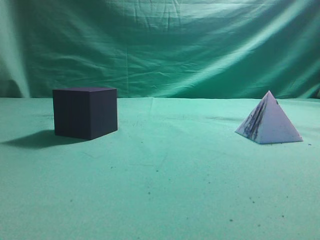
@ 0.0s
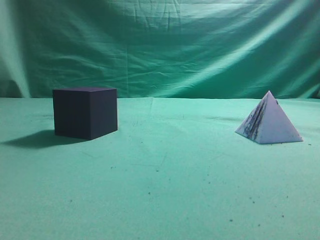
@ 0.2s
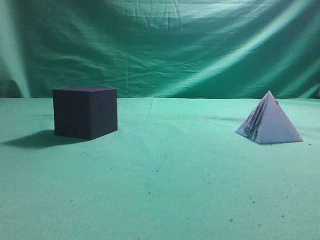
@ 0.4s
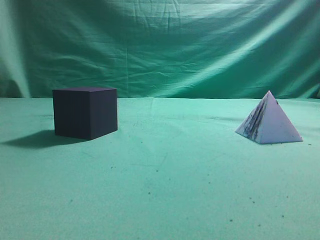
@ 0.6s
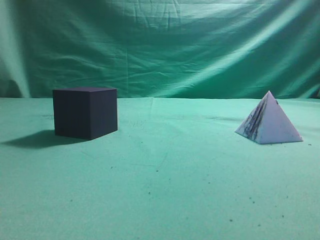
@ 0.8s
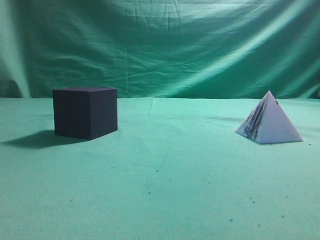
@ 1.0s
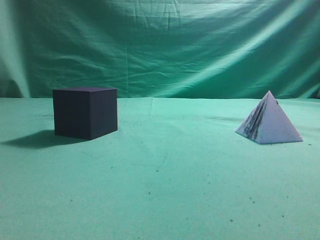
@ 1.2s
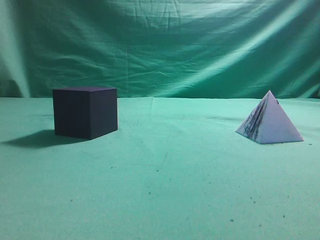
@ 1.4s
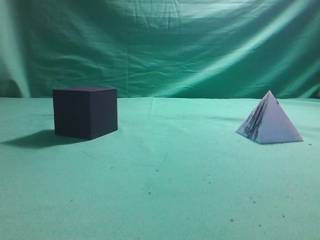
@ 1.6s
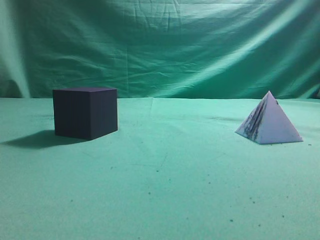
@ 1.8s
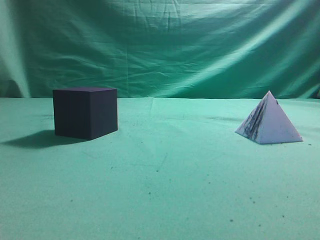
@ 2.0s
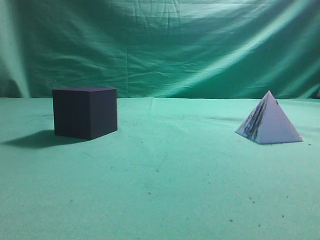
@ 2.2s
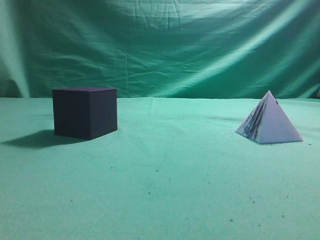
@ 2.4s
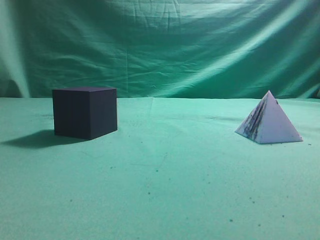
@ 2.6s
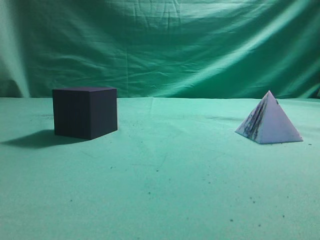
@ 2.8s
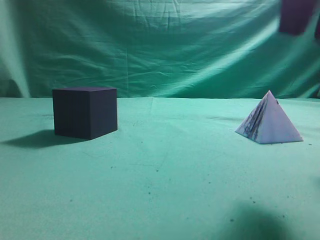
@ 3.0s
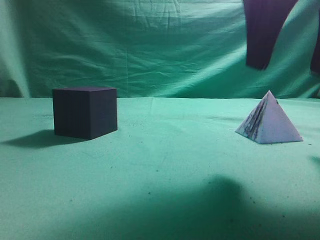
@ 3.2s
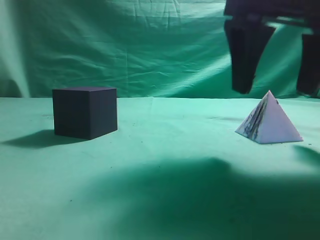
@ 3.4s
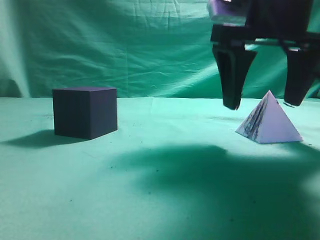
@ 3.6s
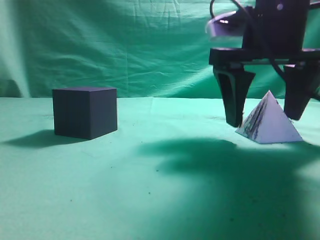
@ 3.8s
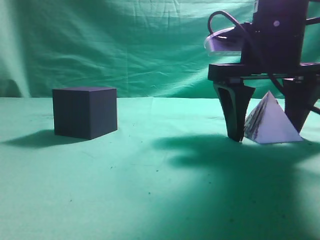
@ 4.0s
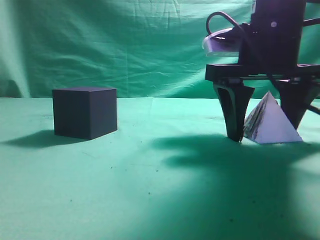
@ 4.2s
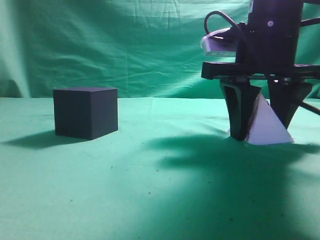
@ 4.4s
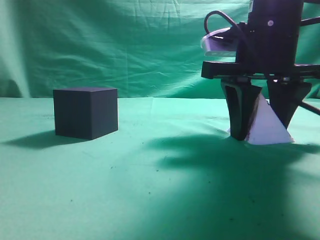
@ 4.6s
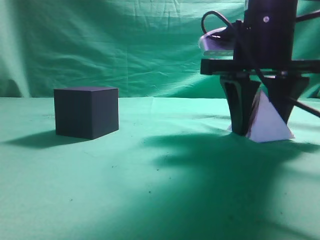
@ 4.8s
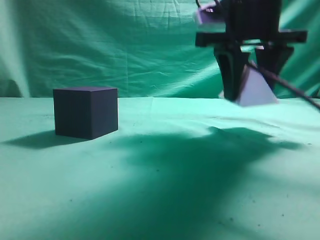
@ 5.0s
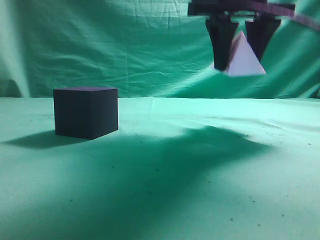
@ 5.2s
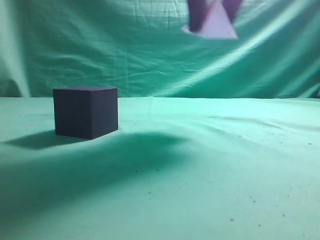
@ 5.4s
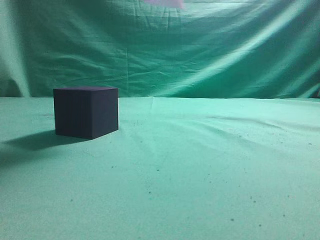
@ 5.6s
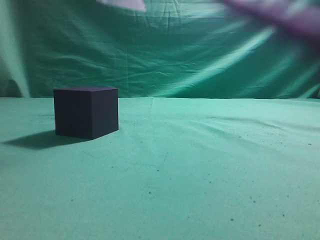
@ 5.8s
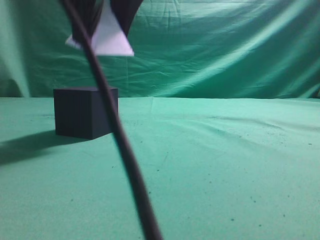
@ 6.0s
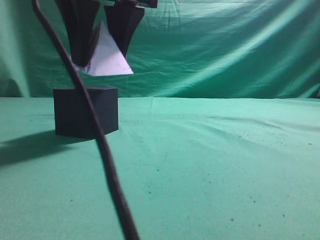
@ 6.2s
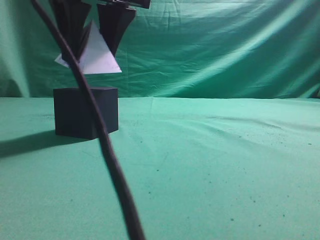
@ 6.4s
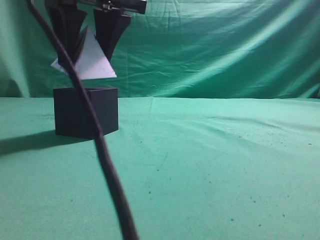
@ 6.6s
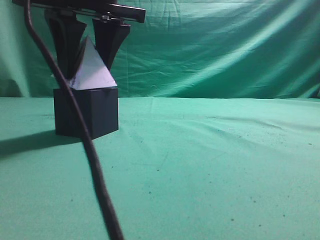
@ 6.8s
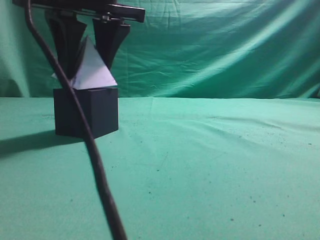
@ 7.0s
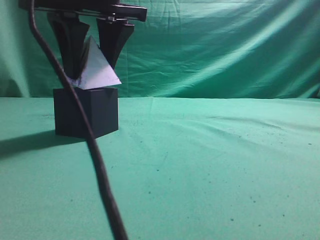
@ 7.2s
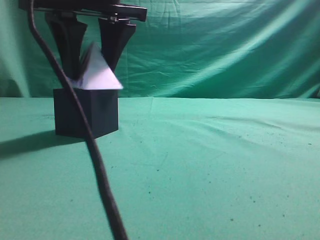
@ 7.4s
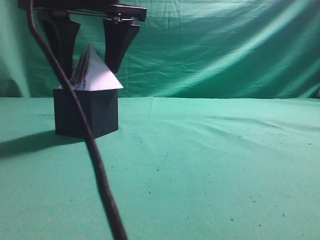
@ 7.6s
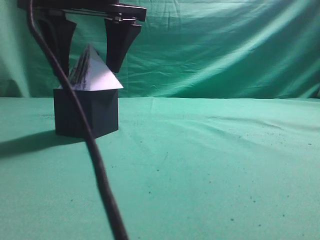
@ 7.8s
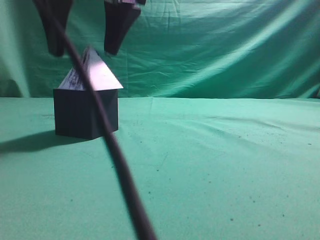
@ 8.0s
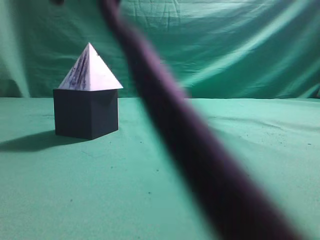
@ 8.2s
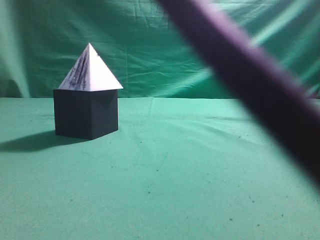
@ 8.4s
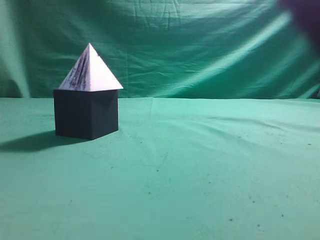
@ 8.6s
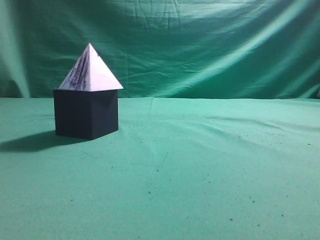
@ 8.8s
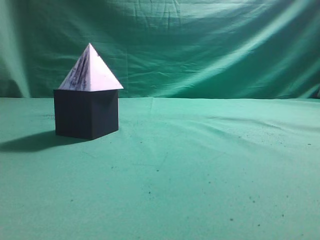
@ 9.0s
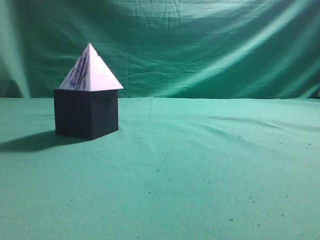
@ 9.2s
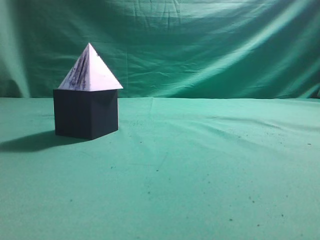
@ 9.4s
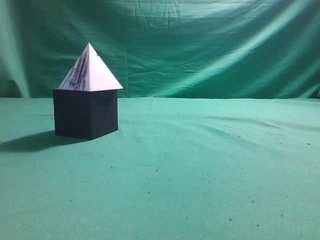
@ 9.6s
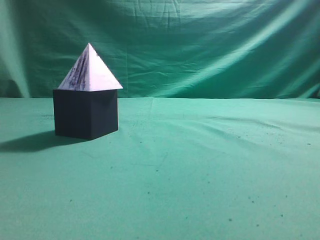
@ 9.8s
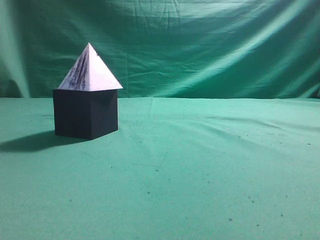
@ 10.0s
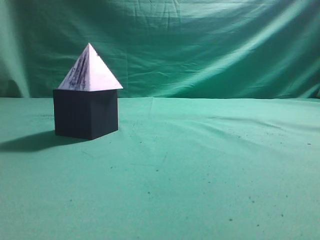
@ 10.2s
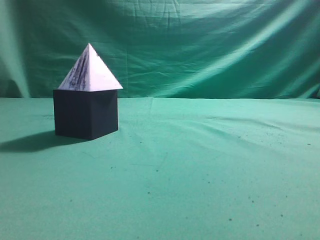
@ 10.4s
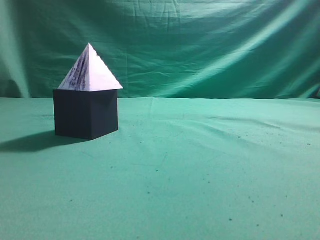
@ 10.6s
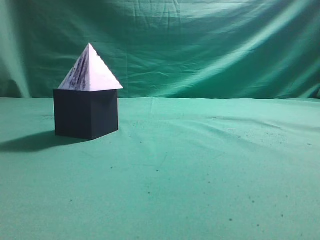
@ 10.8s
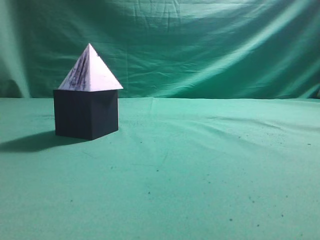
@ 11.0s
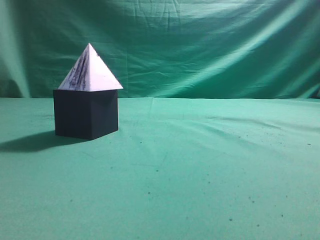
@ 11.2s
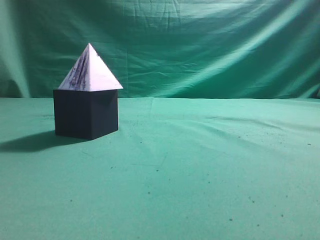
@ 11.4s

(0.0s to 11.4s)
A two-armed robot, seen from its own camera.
Task of the whole recording: pick up the square pyramid from the table and place it on the cube block.
Step, 0.0s - 5.0s: Grasp the triangular block.
Step, 5.2s - 8.0s: Place the block onto the cube-shaped block.
1.4s - 2.8s: The right gripper heads forward, to the left and upward, covering roughly 20 cm.
2.8s - 4.2s: The right gripper shifts roughly 20 cm downward, forward and to the left, and opens its fingers.
4.2s - 5.6s: The right gripper shifts approximately 20 cm upward and to the left.
5.6s - 7.2s: The right gripper moves downward and to the left, about 15 cm.
7.2s - 8.6s: The right gripper moves upward, about 20 cm, and closes up.
8.6s - 10.0s: The right gripper heads to the right and backward, covering roughly 35 cm.
